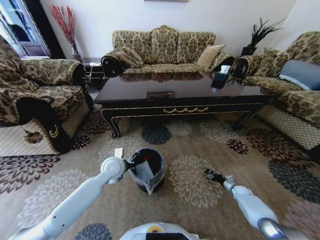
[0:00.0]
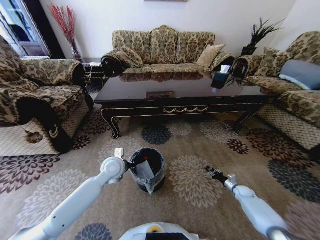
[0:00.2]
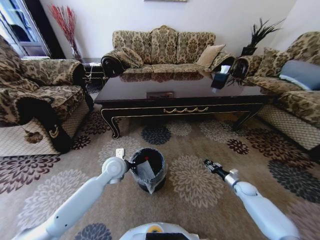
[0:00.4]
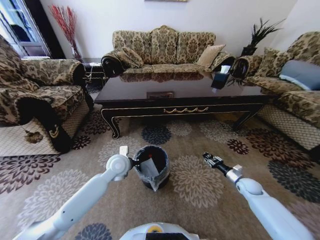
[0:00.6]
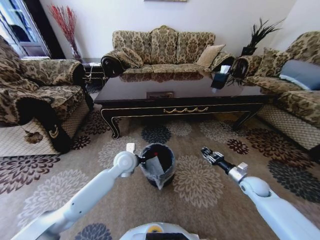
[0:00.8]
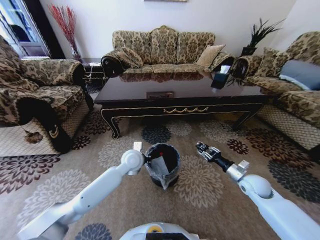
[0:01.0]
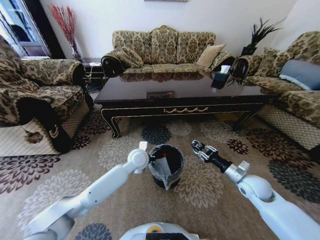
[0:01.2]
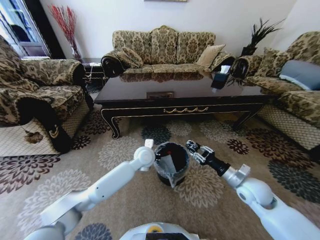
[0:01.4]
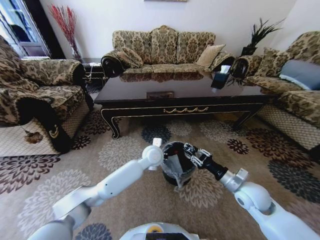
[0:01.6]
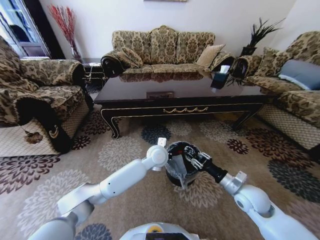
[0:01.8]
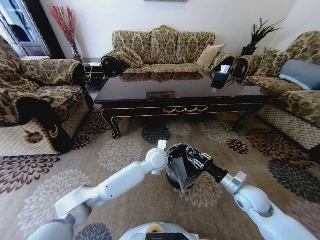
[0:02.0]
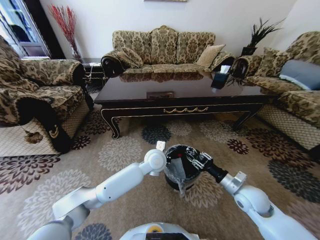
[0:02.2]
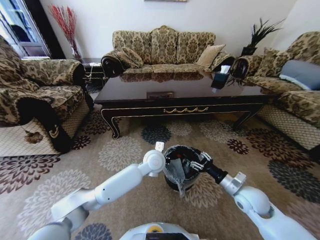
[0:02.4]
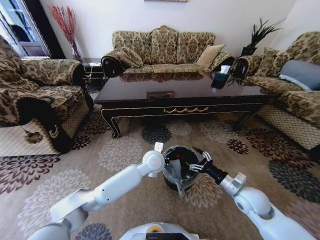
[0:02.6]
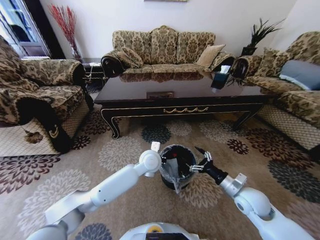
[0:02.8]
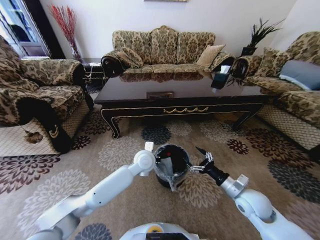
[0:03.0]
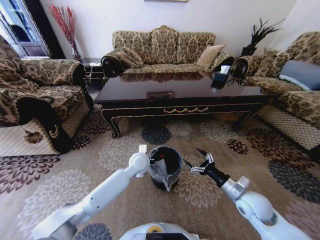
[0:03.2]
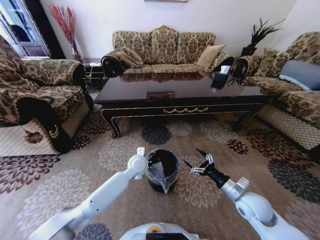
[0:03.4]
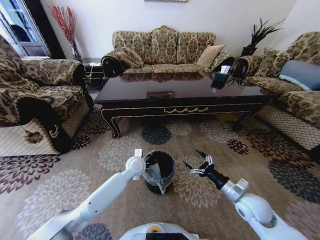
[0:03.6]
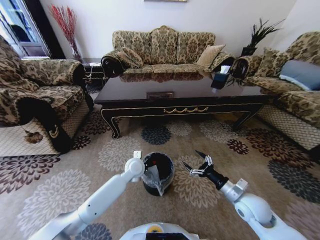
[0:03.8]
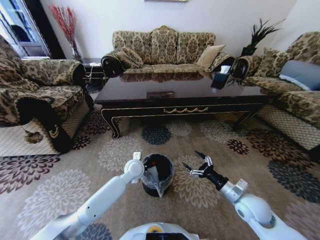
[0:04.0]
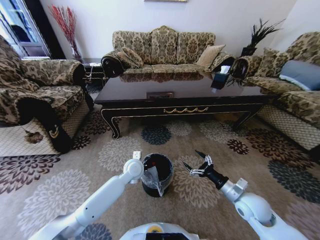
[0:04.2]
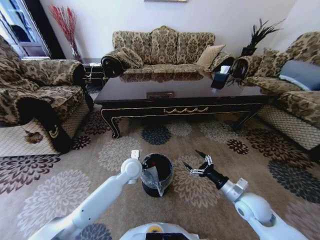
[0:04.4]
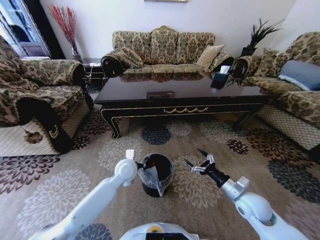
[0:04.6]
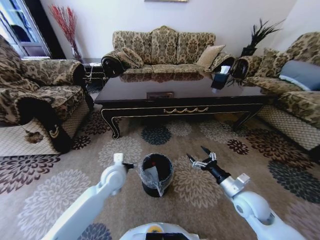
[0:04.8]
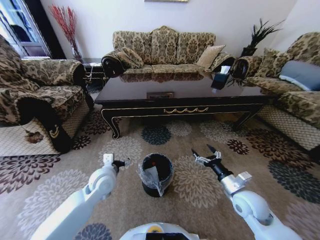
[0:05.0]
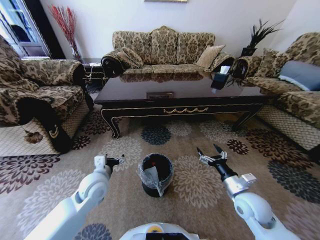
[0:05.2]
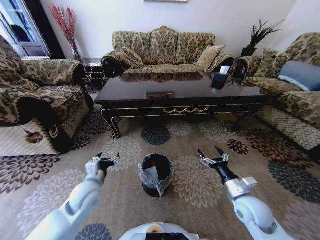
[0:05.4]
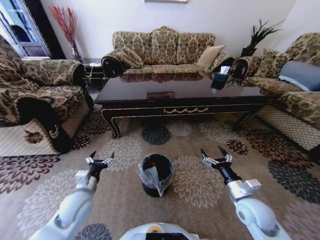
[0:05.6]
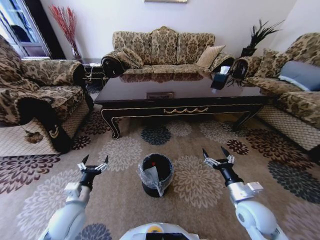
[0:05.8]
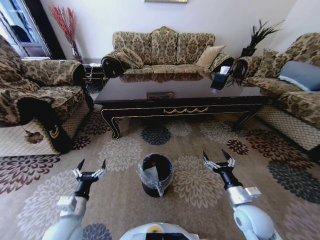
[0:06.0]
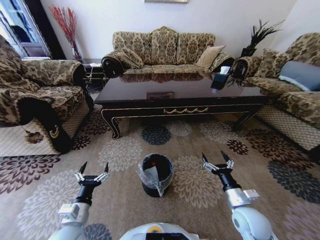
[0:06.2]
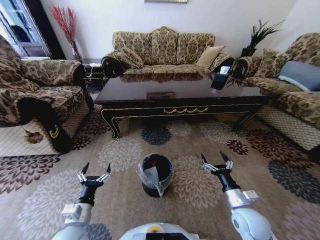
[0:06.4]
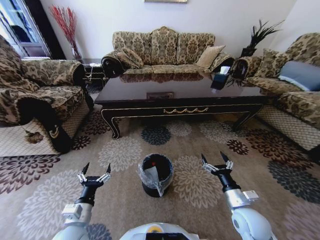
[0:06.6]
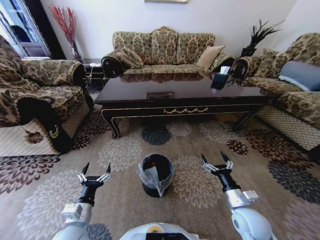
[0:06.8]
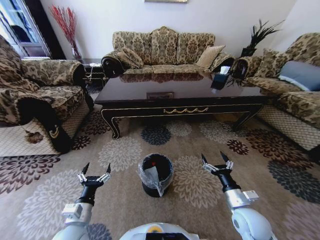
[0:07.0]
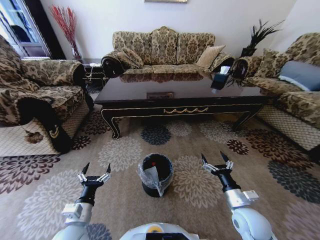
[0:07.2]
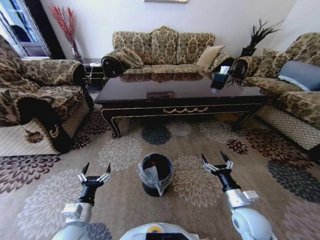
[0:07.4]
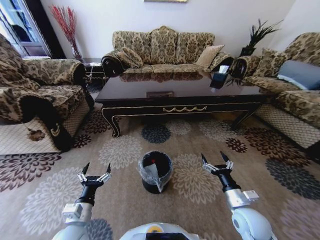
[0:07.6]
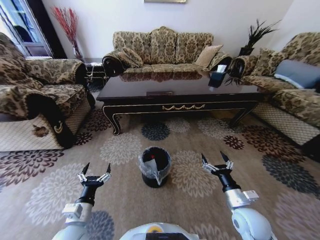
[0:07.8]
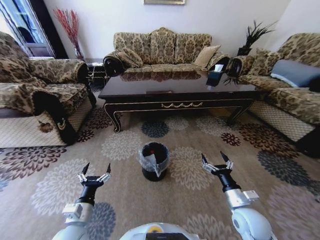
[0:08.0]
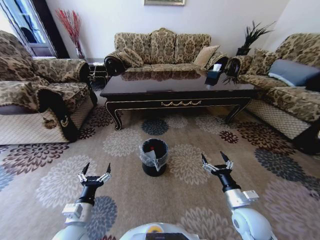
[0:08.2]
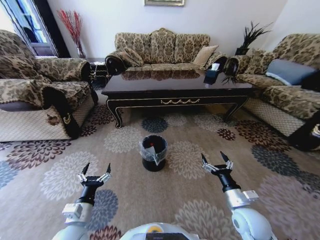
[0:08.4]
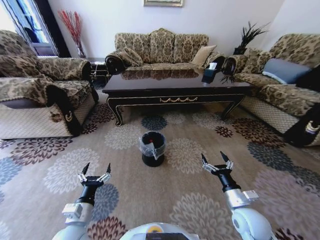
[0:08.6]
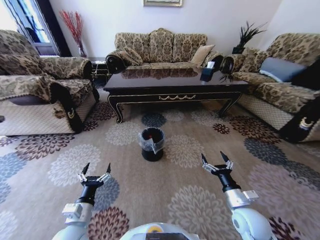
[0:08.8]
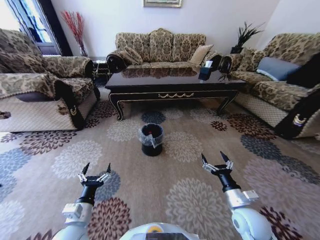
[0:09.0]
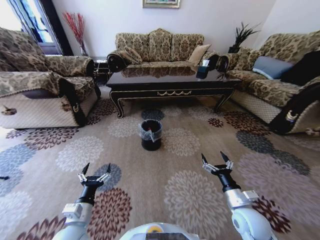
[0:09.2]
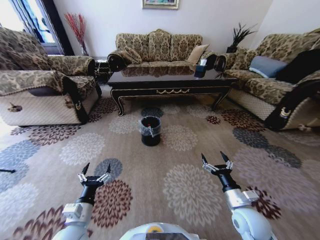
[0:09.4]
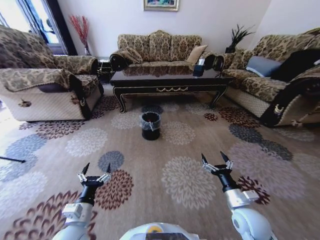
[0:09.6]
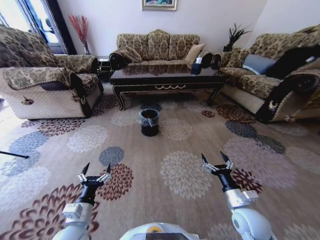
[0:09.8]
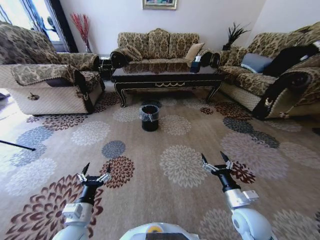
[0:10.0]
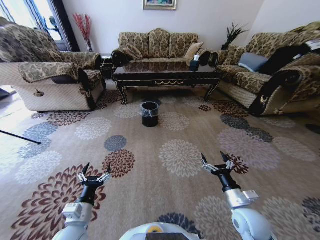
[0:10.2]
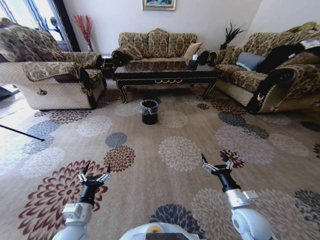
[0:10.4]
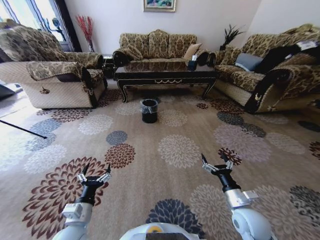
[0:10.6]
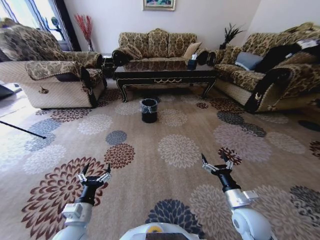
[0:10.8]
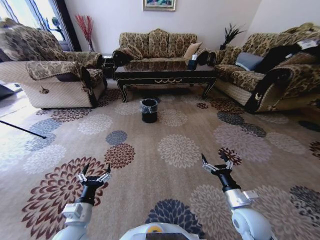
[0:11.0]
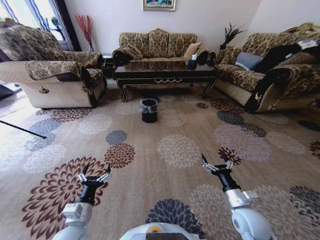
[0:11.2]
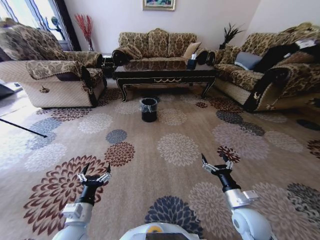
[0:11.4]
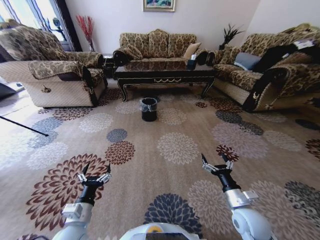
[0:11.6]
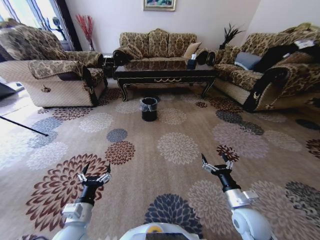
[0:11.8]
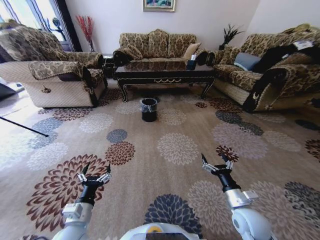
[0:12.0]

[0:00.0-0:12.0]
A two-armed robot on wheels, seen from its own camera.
Task of the whole recording: Move to the front of the table and pick up the trash from the floor, then place it into the trash bin.
0:00.0 to 0:01.6: The left gripper heads to the right, covering roughly 15 cm; the right gripper is displaced upward and to the left by about 35 cm.
0:01.6 to 0:03.0: The right gripper opens its fingers.
0:03.0 to 0:04.4: The left gripper shifts some 5 cm to the left, and opens its fingers.
0:04.4 to 0:06.0: The left gripper goes some 30 cm backward and to the left, and opens its fingers.
0:06.0 to 0:07.6: The grippers stay close to where they were, moving slightly.
0:10.4 to 0:12.0: The two grippers keep their place.

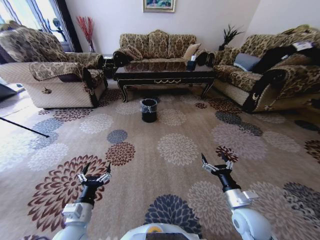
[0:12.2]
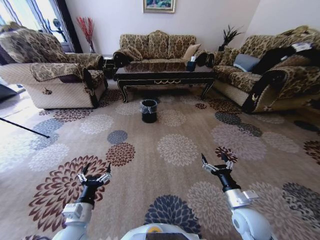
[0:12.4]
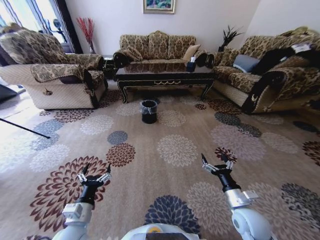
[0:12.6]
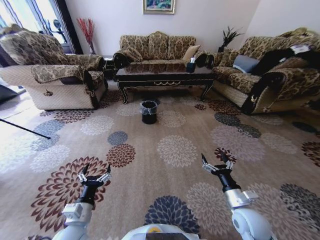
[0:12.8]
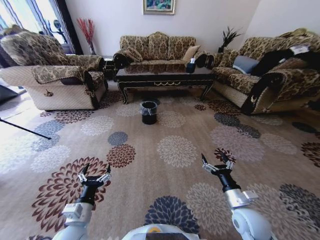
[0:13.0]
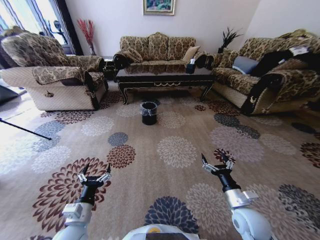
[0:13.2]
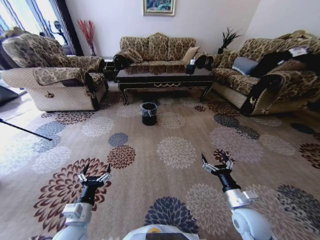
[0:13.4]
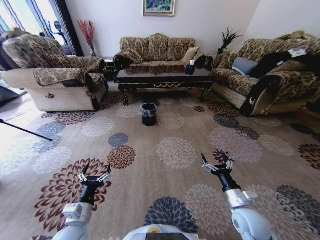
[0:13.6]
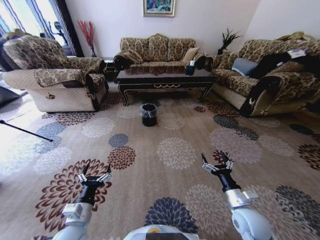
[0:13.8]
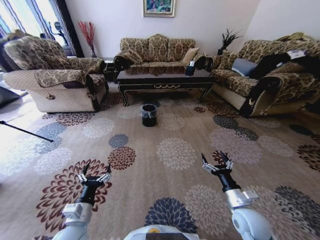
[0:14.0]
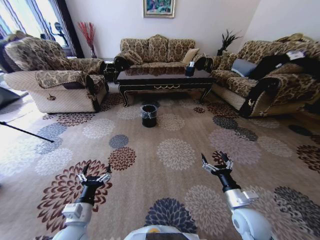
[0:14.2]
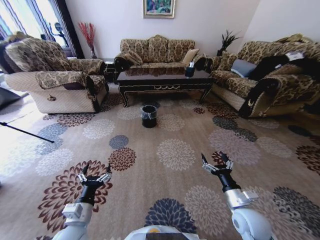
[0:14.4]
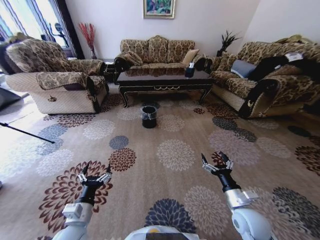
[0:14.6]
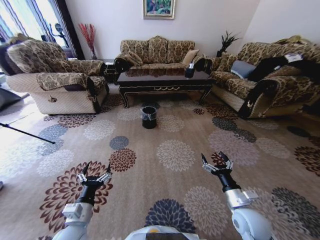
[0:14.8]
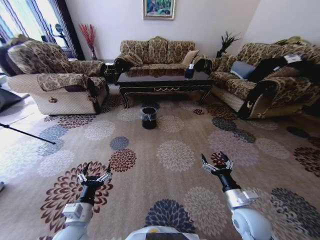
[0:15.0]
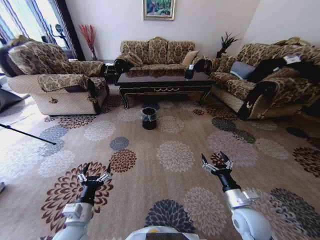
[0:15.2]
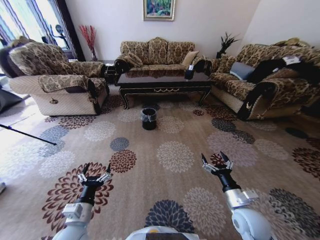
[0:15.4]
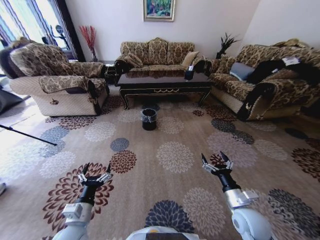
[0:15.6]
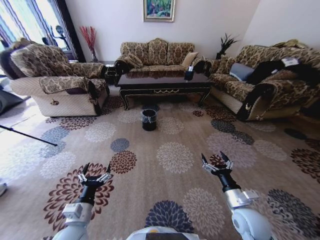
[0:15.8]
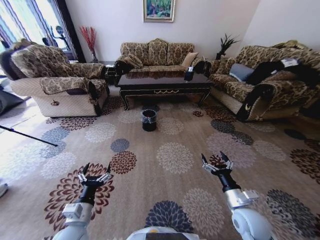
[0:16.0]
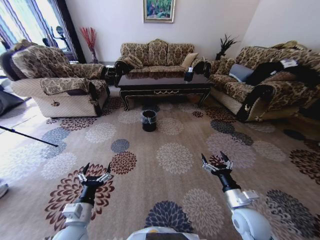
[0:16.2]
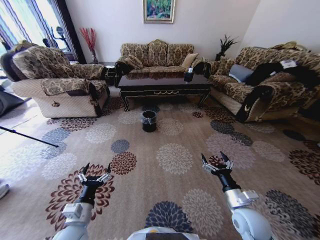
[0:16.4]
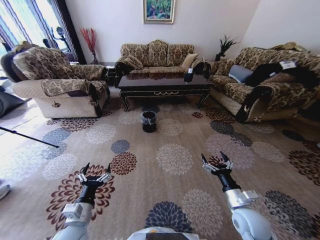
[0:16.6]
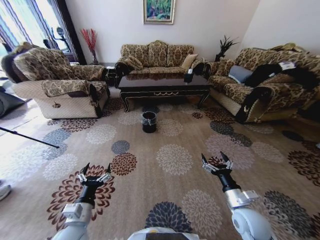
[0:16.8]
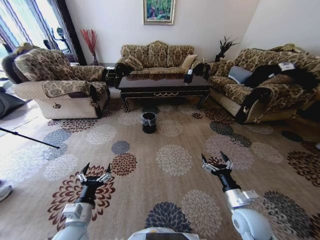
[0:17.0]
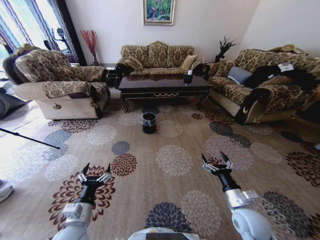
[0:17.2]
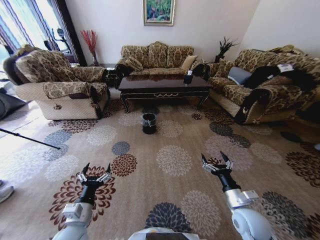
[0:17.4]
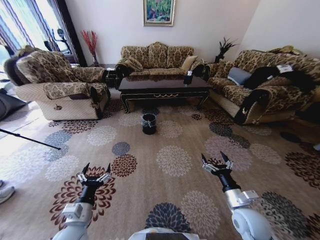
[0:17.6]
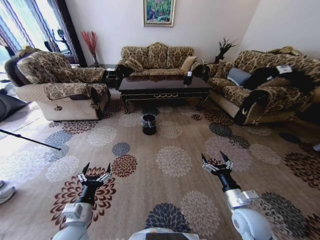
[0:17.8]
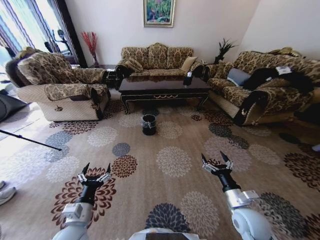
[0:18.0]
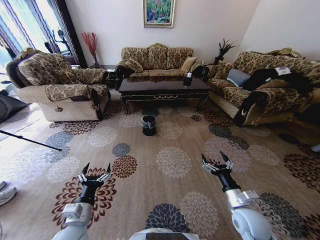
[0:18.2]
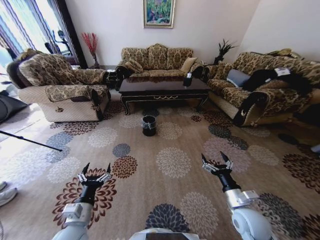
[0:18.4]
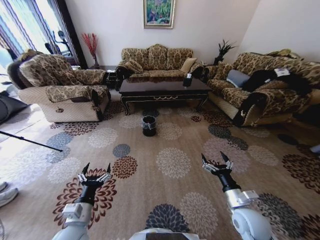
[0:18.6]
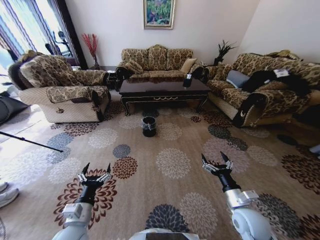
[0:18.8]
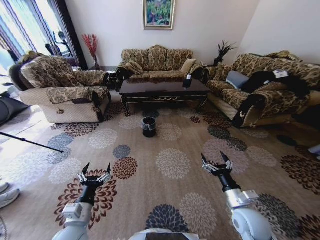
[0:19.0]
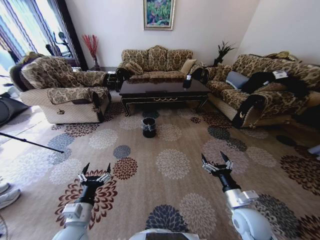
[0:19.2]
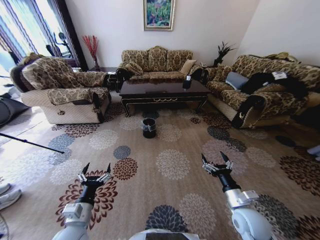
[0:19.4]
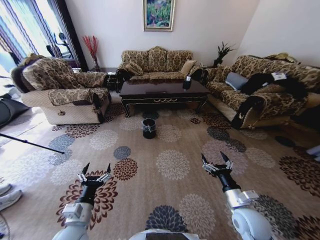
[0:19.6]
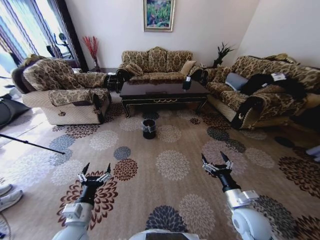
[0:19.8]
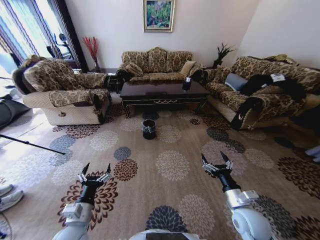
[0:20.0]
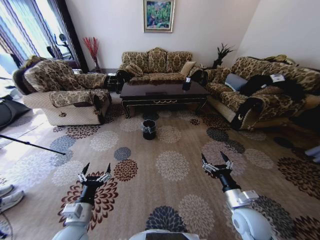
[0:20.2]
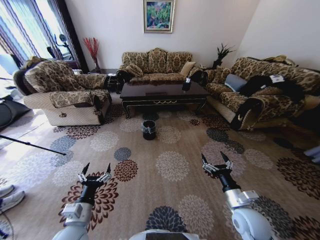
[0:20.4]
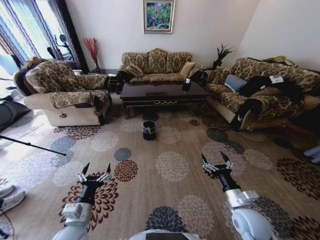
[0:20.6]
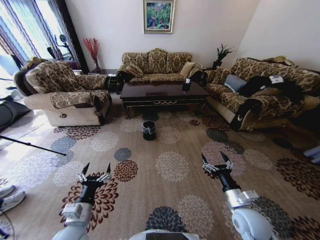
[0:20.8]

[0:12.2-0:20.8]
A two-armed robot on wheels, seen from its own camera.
Task of the whole recording: Move to the front of the table and pick up the trash from the floor, then place it into the trash bin.
0:19.4 to 0:20.8: Neither gripper changes place.

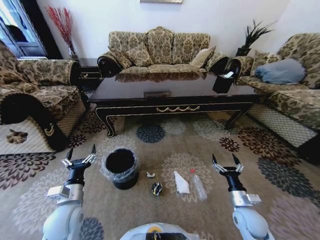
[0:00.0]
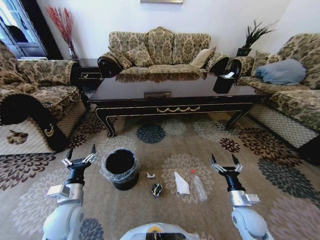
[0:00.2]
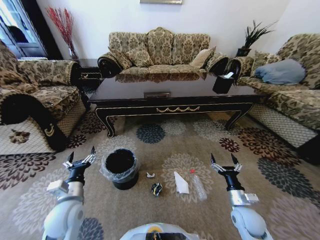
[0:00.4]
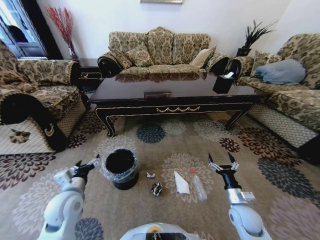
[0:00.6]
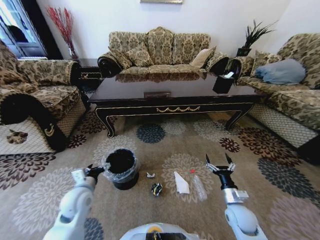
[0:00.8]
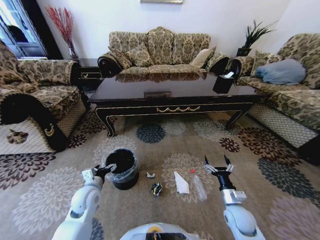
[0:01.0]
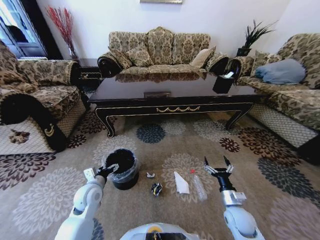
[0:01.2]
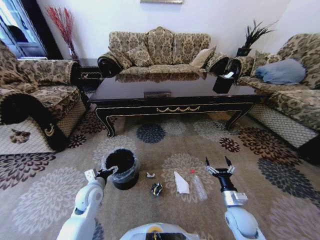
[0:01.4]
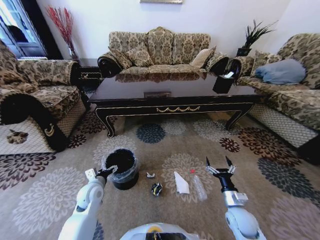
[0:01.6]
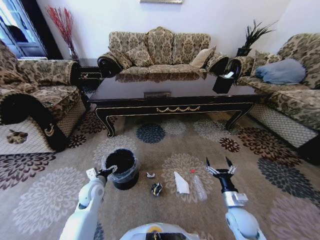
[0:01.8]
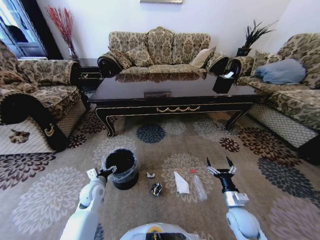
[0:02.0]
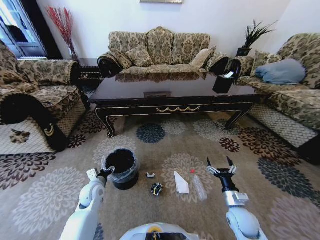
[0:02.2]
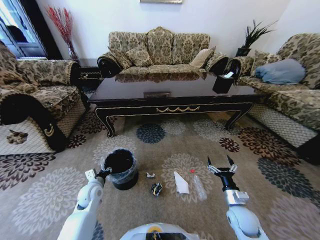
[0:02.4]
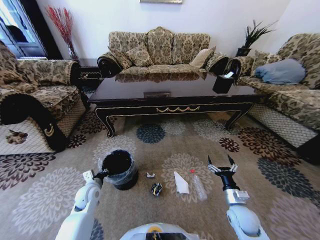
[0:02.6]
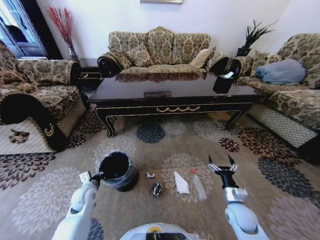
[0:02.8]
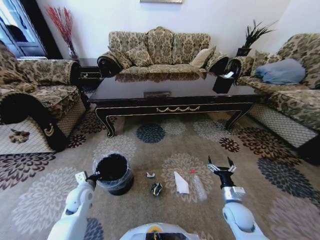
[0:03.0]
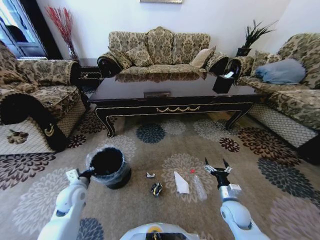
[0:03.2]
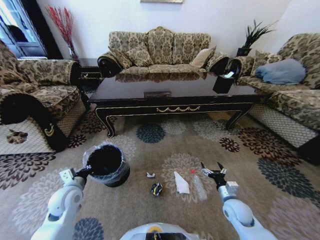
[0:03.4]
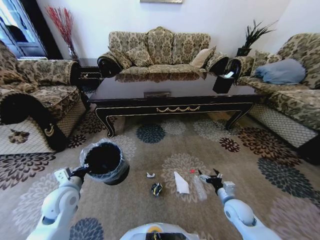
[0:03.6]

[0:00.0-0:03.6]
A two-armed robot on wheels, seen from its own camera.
Task of the whole recording: Move to the front of the table and pick up the trash from the floor, then place it into the trash bin.
0:00.0 to 0:01.8: The left gripper shifts roughly 15 cm forward and downward.
0:01.8 to 0:03.6: The left gripper shifts about 10 cm upward, backward and to the left, and closes.
